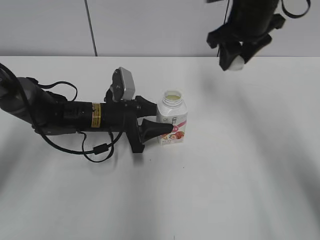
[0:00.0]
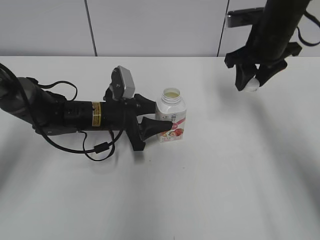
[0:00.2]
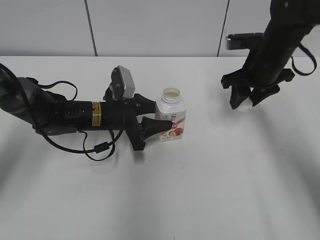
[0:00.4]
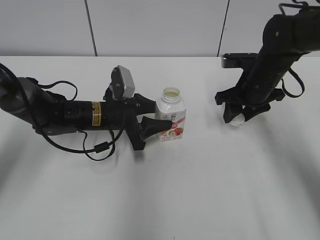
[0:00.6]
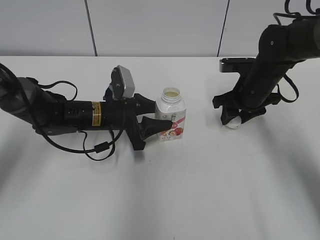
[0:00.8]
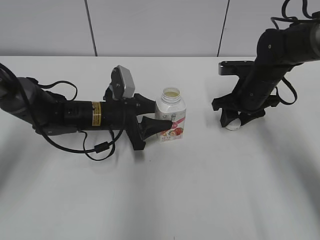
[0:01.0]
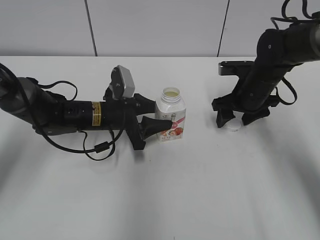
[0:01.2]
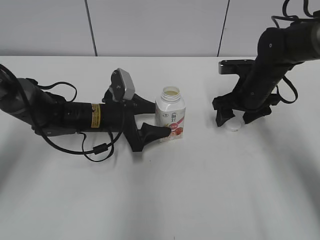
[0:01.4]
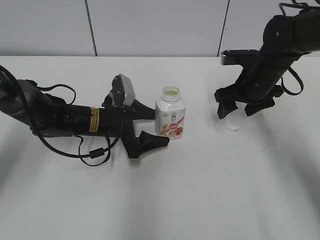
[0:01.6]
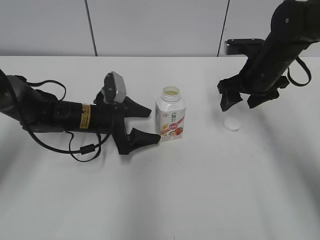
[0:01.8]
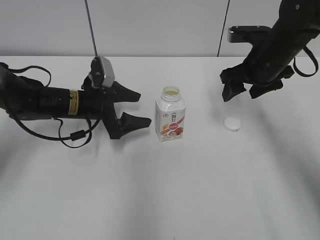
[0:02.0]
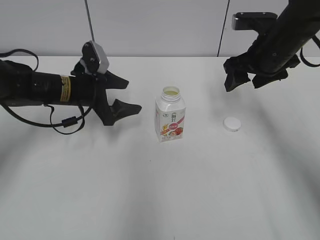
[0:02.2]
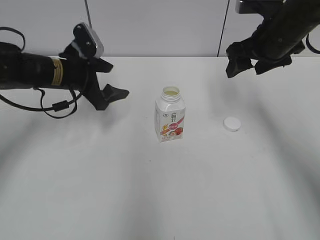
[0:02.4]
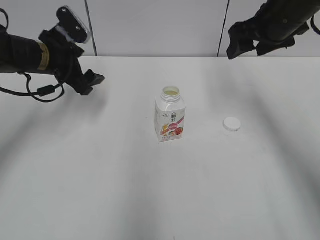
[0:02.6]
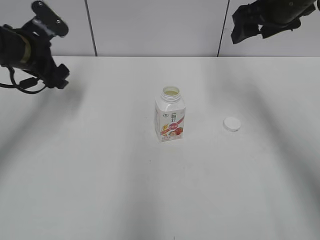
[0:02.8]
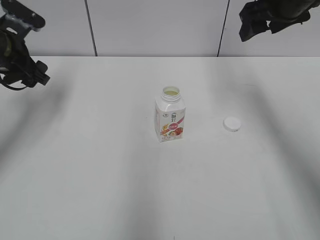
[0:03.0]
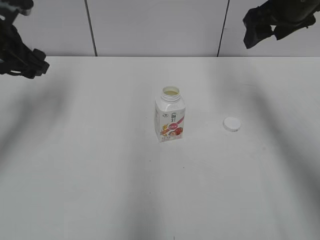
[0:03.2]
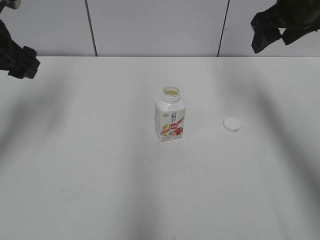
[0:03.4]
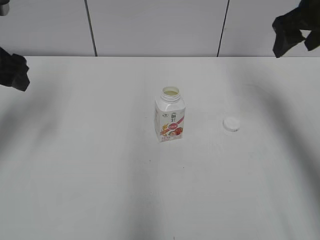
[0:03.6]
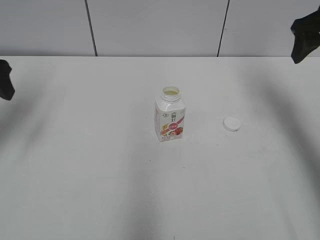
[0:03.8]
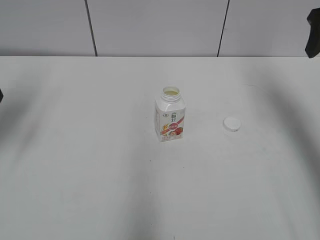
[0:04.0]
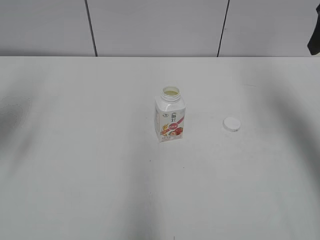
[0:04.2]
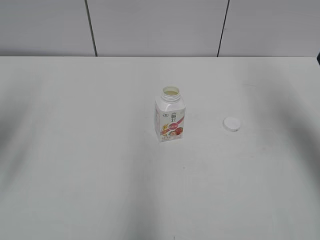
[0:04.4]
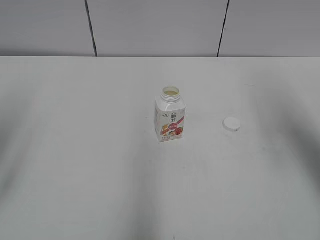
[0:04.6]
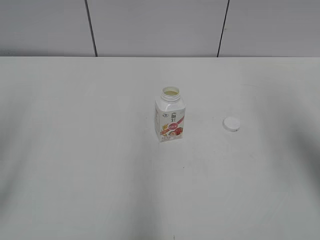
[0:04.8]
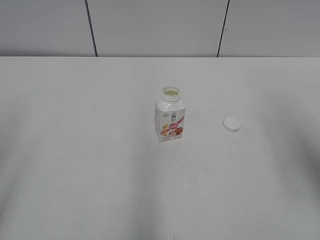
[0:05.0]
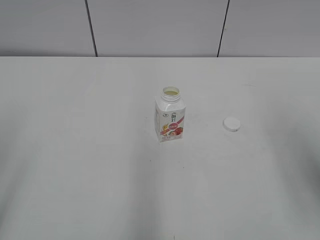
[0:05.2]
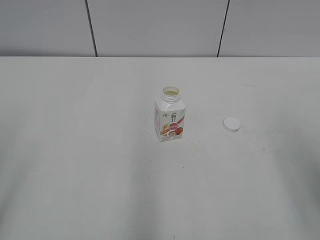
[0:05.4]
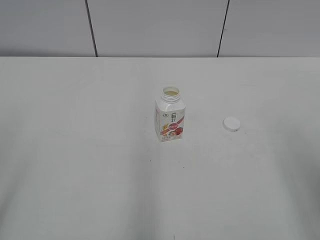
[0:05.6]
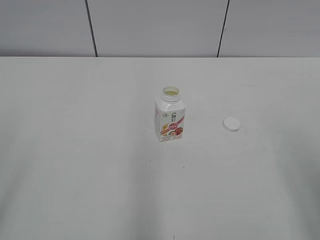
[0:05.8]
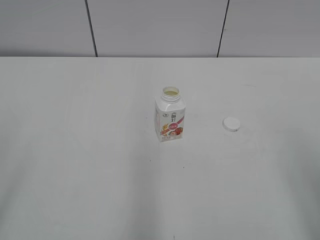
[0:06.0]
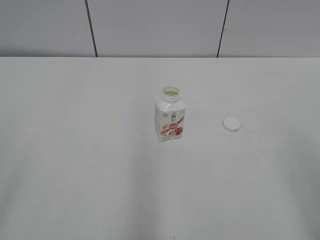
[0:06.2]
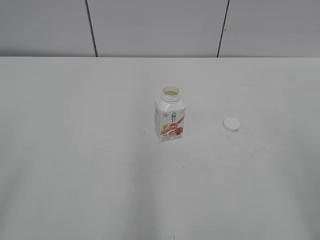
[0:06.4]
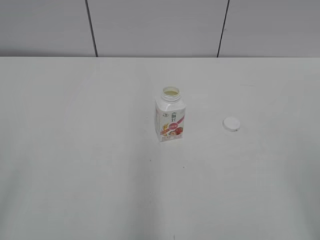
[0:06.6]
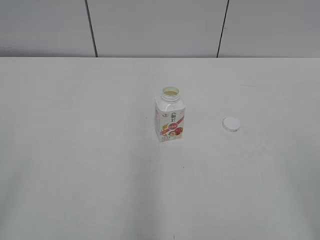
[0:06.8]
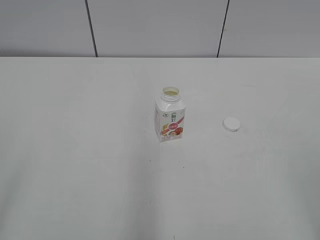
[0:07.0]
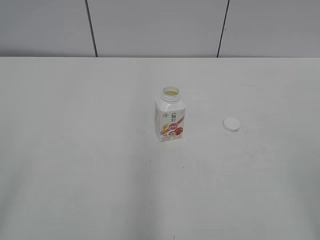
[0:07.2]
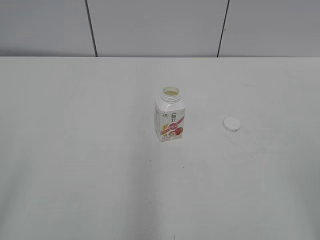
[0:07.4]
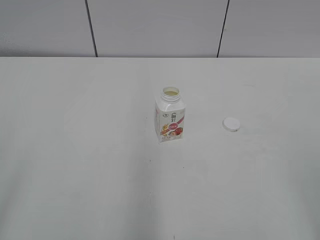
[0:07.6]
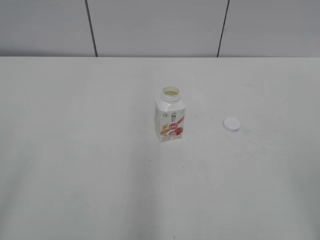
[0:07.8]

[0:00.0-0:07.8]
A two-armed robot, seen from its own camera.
Step, 0:01.2 to 0:01.4: Place the Yili Changqing with the left hand.
0:00.0 to 0:01.6: The left gripper opens. The right gripper shifts some 15 cm downward, and opens its fingers.
0:01.6 to 0:03.2: The left gripper shifts some 25 cm upward and to the left, while the right gripper shifts approximately 15 cm upward.
0:03.2 to 0:04.6: The left gripper goes roughly 20 cm backward, while the right gripper heads backward and to the right, covering roughly 15 cm.
0:04.6 to 0:06.2: The right gripper shifts some 20 cm backward.
